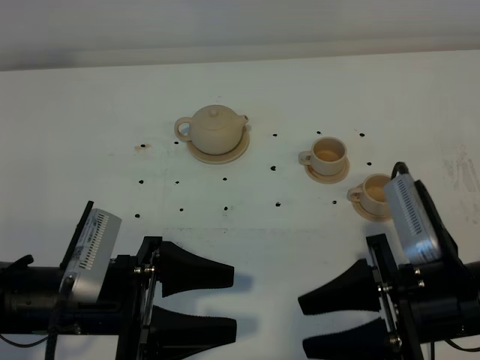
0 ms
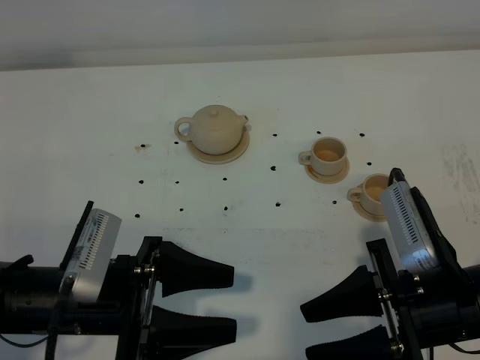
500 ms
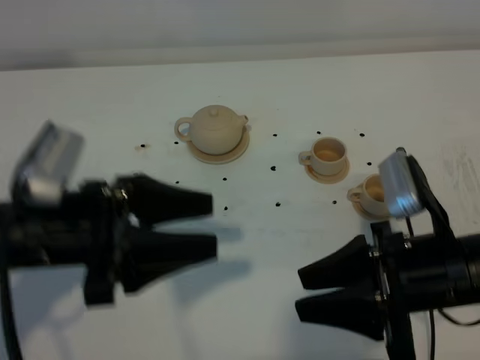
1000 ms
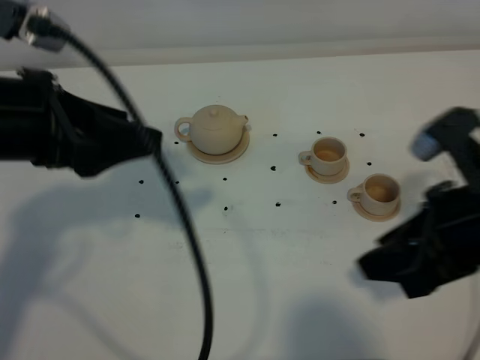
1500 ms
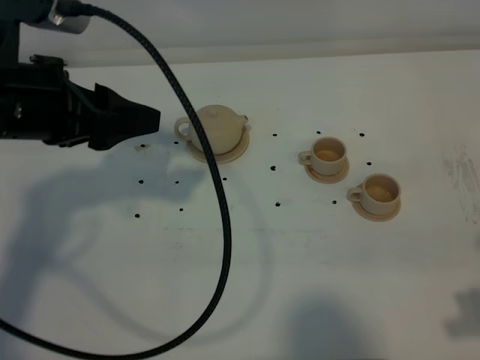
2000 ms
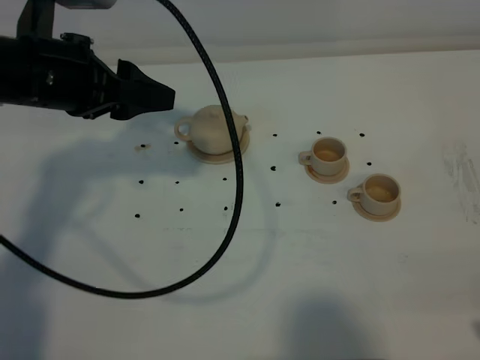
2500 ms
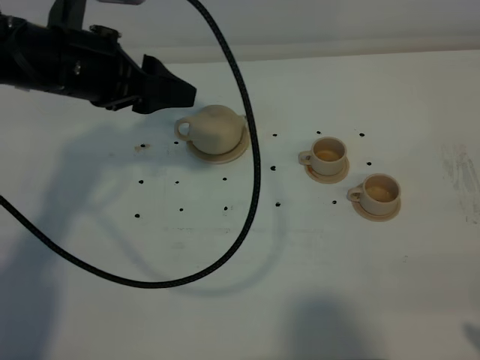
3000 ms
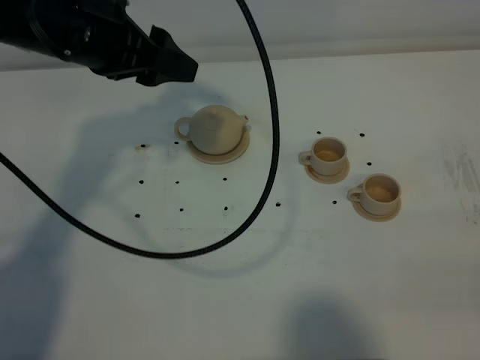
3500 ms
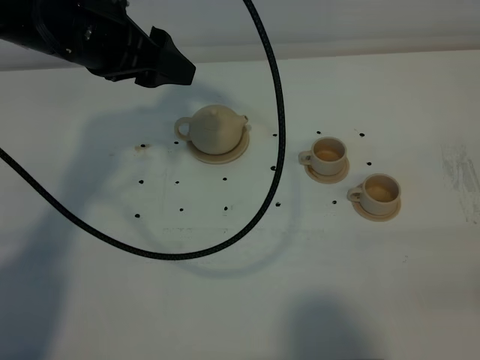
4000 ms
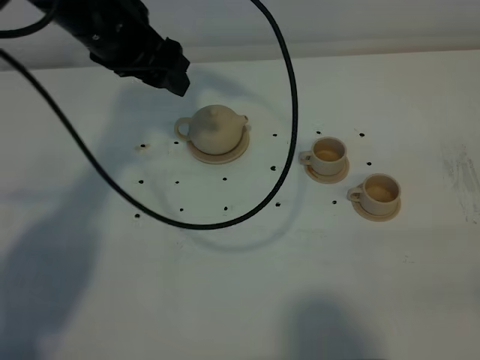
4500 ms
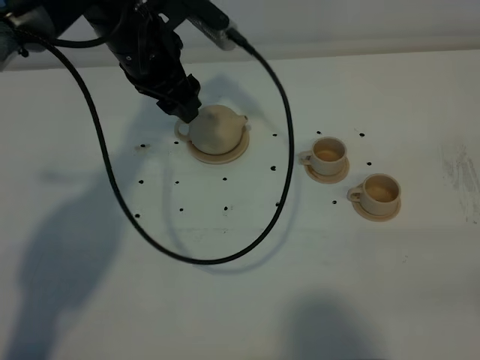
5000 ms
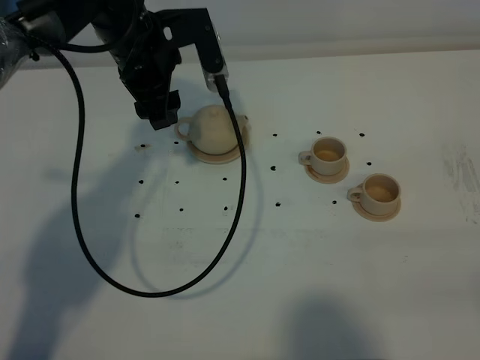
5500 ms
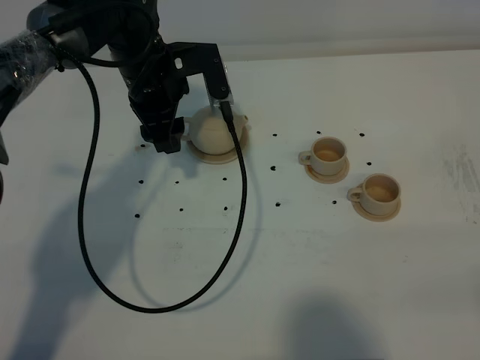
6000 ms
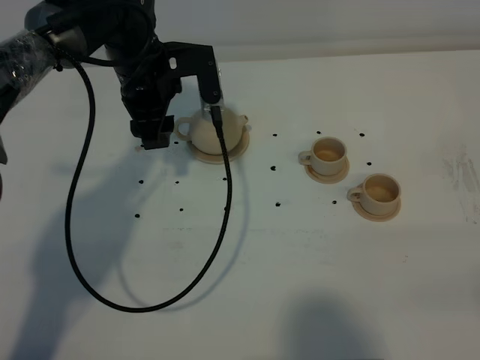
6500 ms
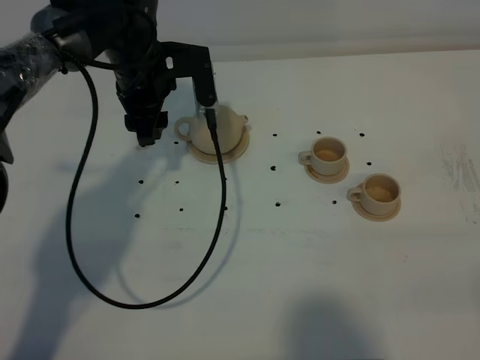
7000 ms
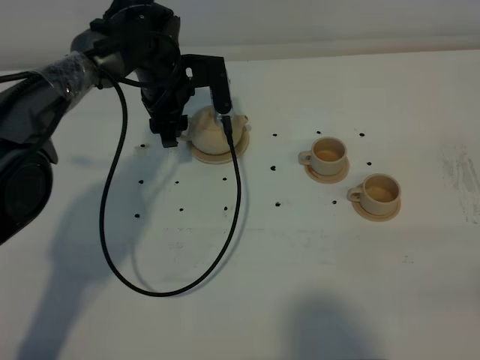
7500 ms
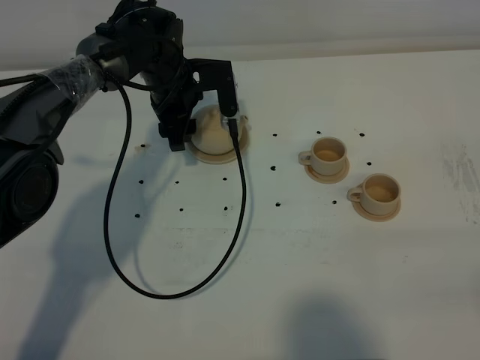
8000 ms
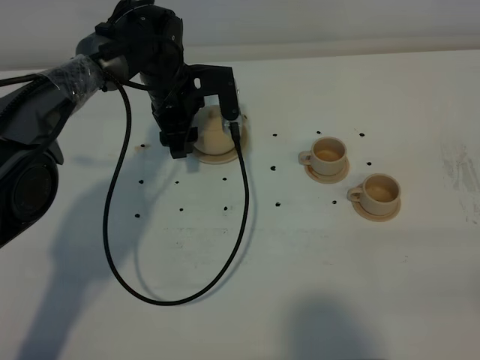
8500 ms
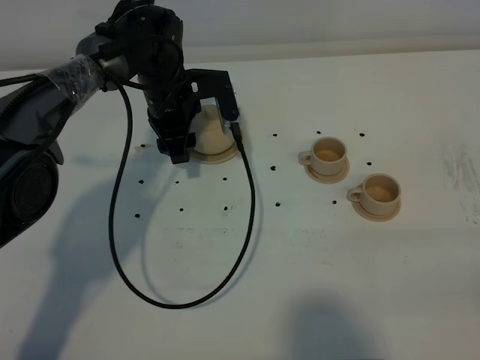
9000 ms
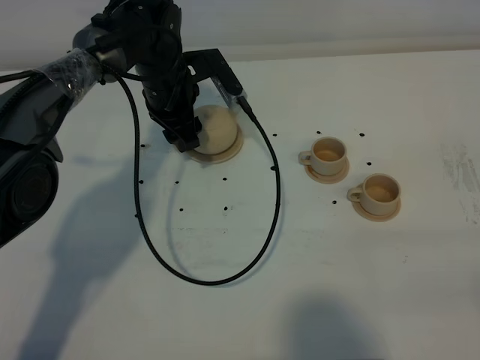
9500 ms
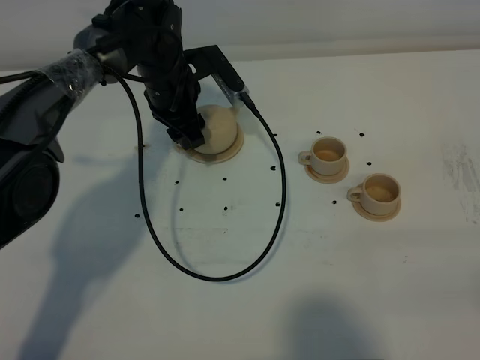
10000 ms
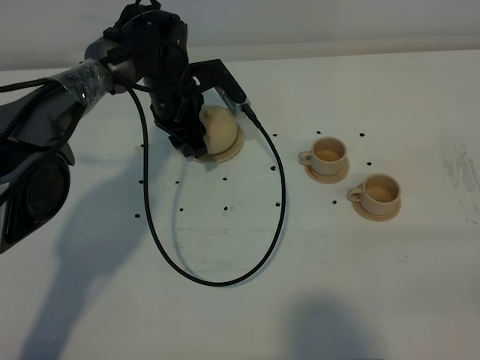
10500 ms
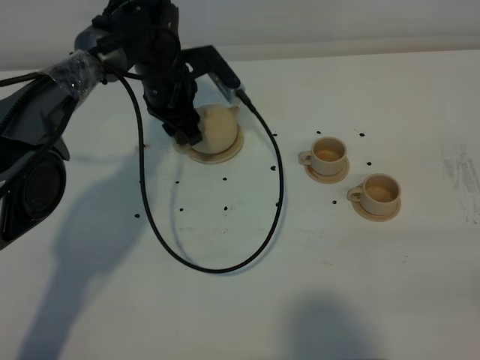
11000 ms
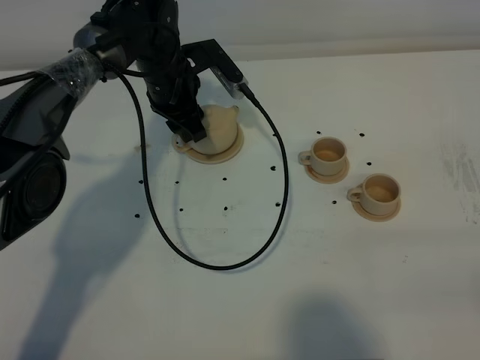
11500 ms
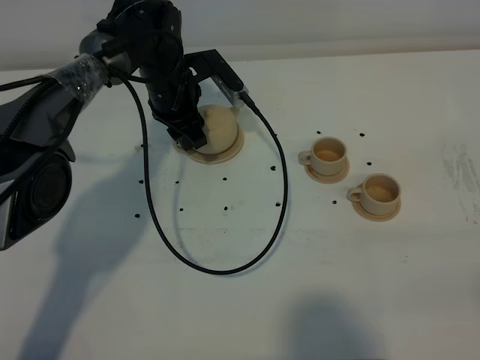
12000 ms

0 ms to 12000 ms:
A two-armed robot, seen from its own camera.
Task of the whole recording: grasp the brown teapot and pour the tea into the two brown teacups one by one, put the brown teapot back in its original place.
0 ms to 2000 ms: The right gripper is displaced to the right and upward by some 15 cm. Meanwhile the left gripper heads upward and forward, covering roughly 20 cm.
2000 ms to 4000 ms: The right gripper shifts approximately 10 cm backward; the left gripper shifts some 10 cm forward.
4000 ms to 6000 ms: The left gripper is displaced downward and forward by roughly 15 cm.
6000 ms to 8000 ms: The left gripper travels downward by about 5 cm.
10000 ms to 12000 ms: The grippers make only small movements.

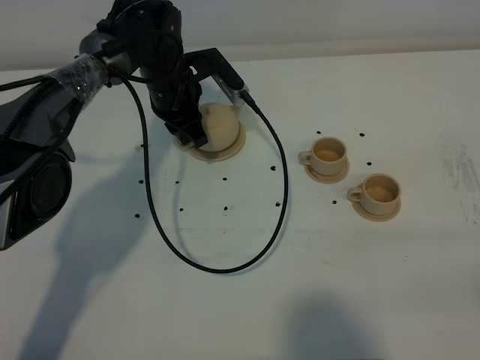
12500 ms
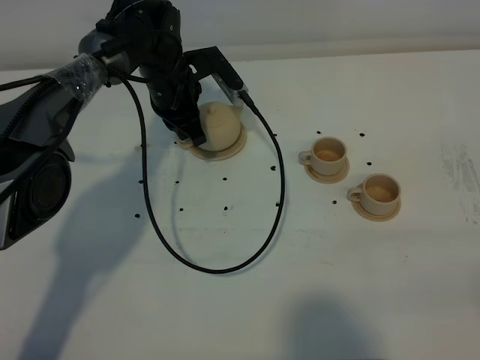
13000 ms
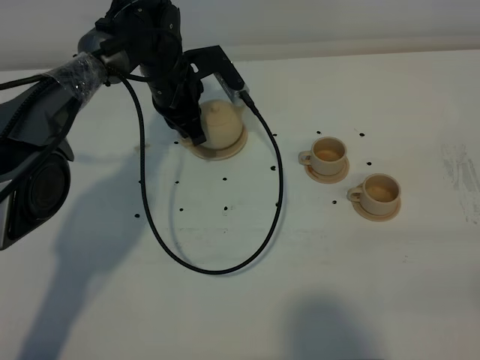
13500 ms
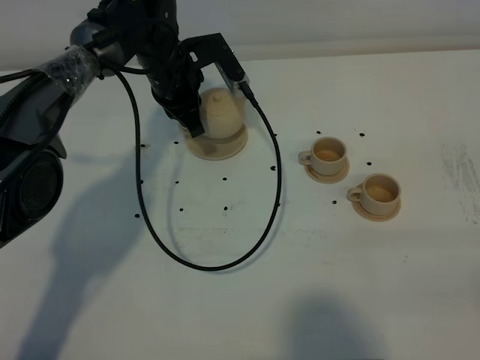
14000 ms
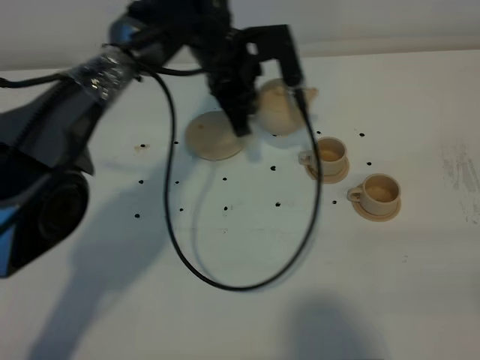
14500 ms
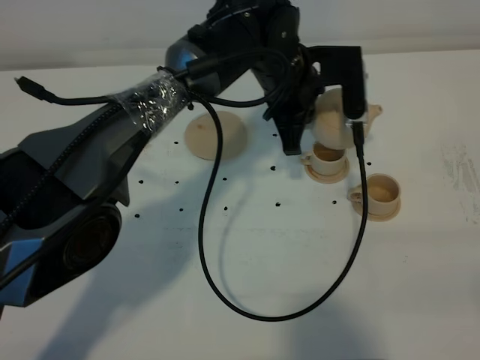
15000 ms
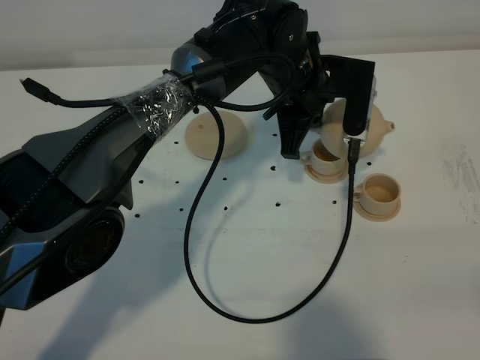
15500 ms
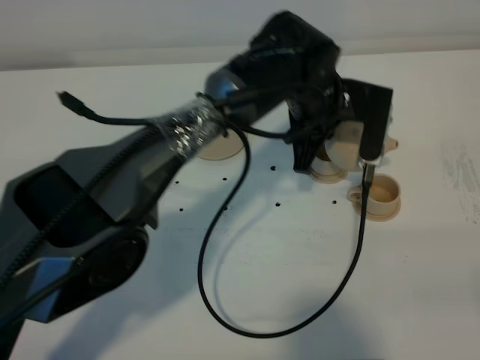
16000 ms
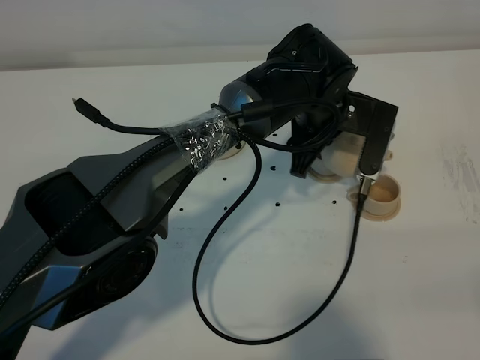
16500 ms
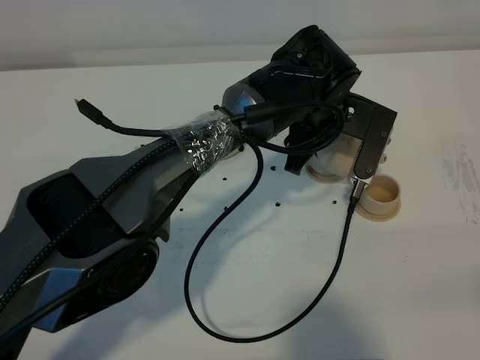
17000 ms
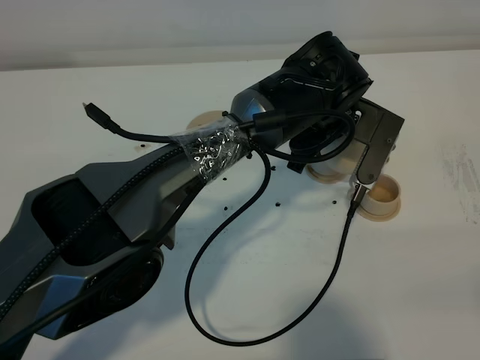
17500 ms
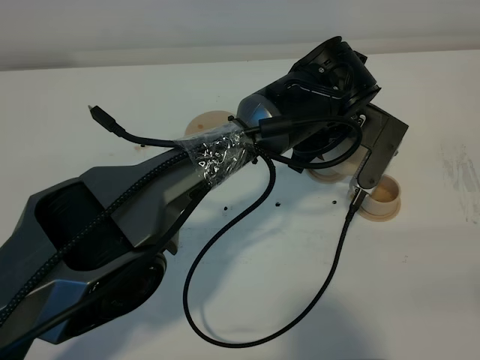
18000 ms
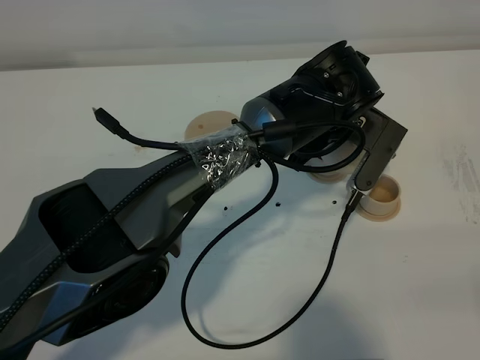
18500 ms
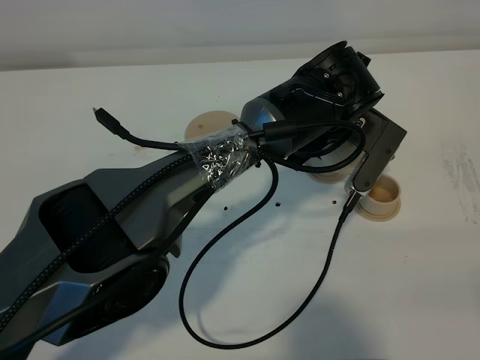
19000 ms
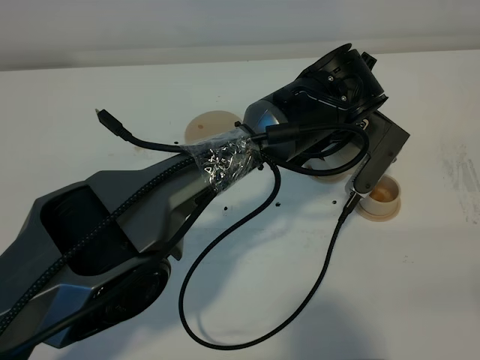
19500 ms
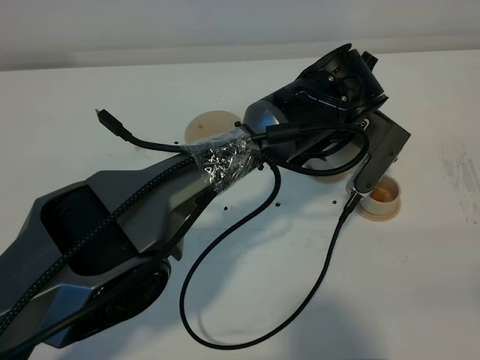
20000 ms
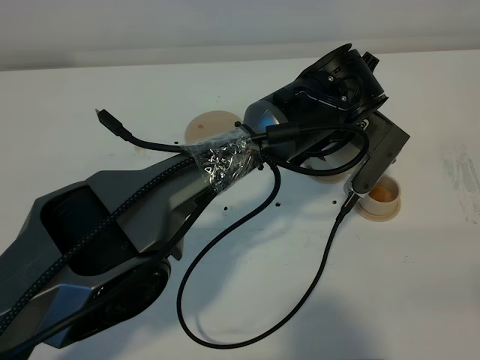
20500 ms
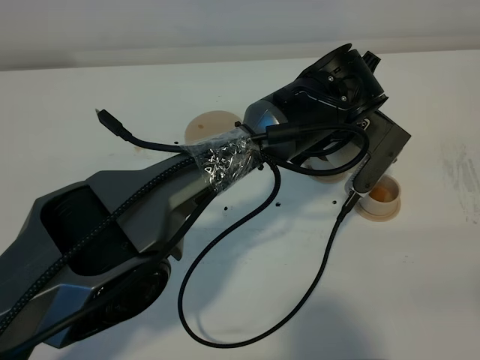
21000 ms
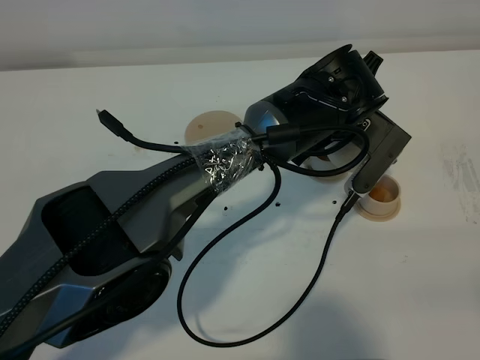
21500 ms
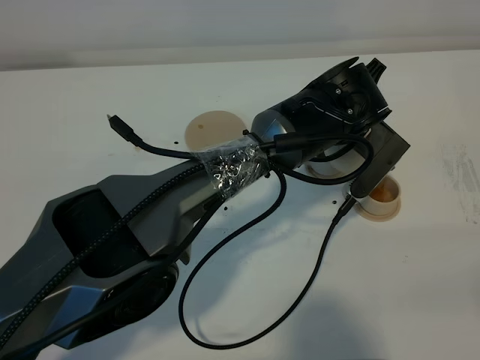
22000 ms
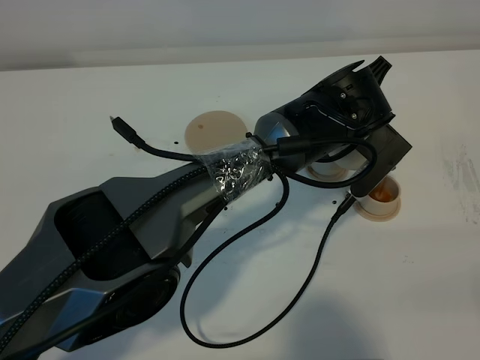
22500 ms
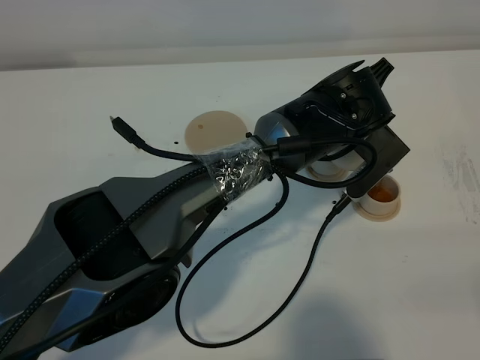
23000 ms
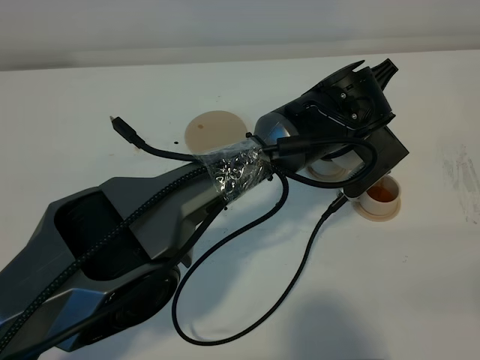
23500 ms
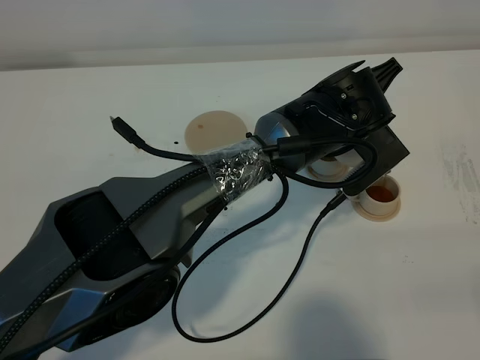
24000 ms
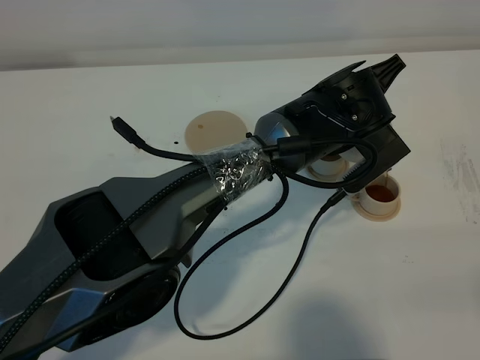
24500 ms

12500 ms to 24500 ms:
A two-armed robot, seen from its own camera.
Task of the whole recording: grasp the brown teapot and pour the tea into the two brown teacups one by one, put the brown teapot back in its original place.
12500 ms to 14500 ms: The left gripper shifts roughly 10 cm to the right and upward.
14500 ms to 16500 ms: The left gripper is displaced to the right and backward by roughly 10 cm.
18500 ms to 22500 ms: There are only small adjustments of the grippers.
22500 ms to 24500 ms: There are only small adjustments of the grippers.

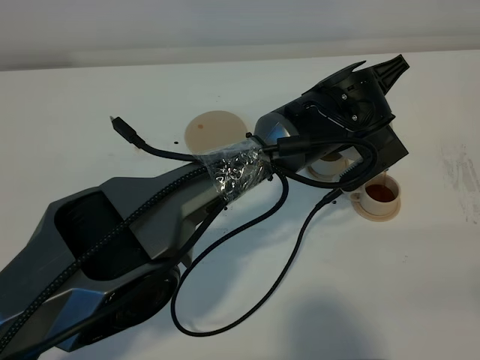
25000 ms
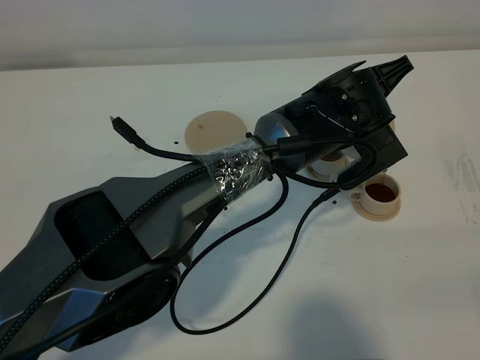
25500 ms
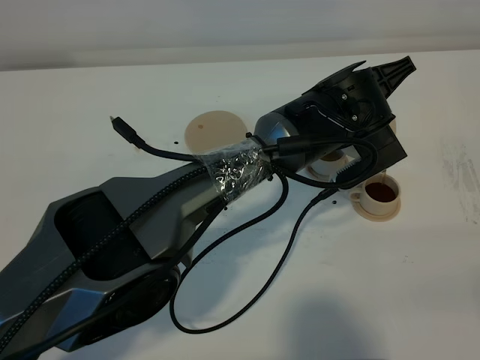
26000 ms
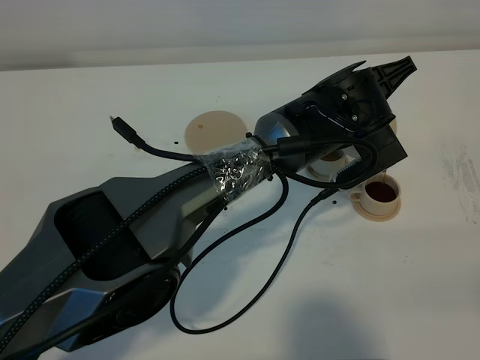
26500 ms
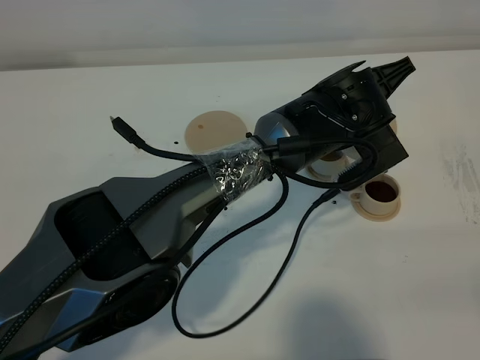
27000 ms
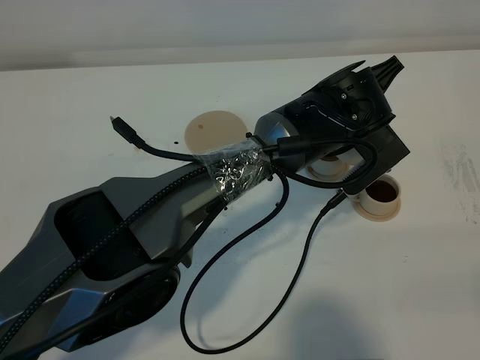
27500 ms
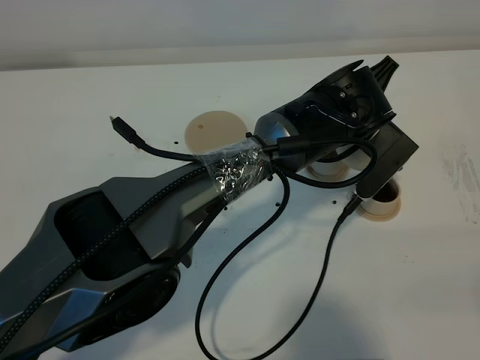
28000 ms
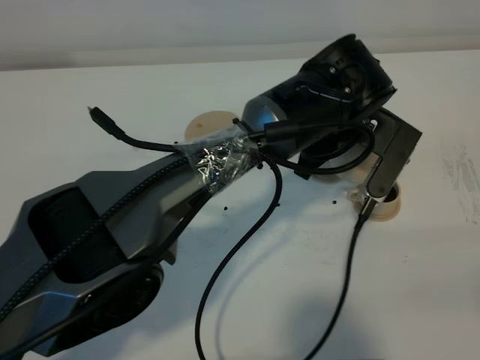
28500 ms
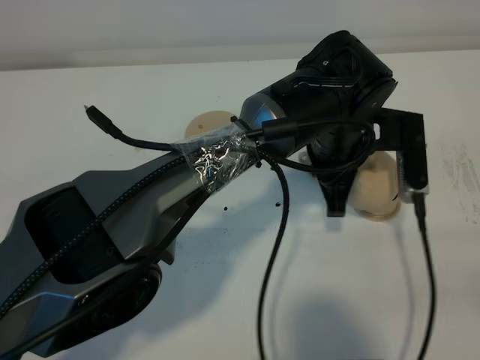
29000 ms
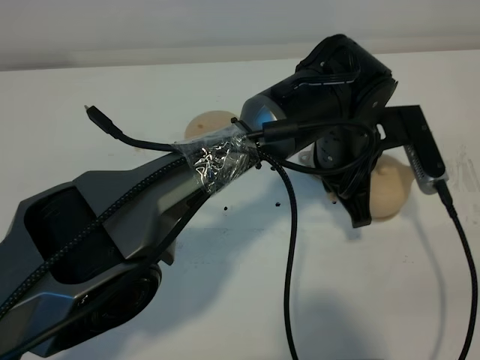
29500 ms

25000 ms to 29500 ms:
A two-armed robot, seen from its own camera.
Task of the whole recording: grasp the brown teapot and pour the tea into the two brown teacups one by one, put the brown teapot back in its original place.
25000 ms to 27000 ms: The grippers stay close to where they were, moving slightly.
27000 ms to 29500 ms: The left gripper shifts by approximately 5 cm.
